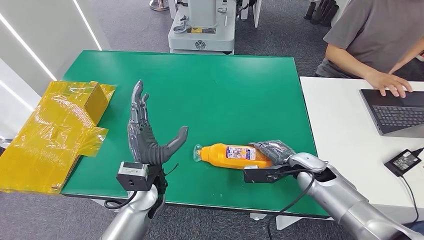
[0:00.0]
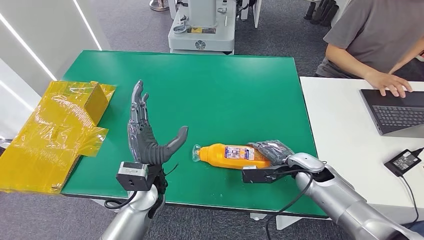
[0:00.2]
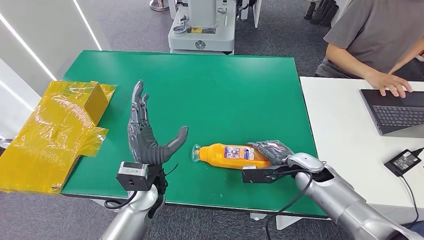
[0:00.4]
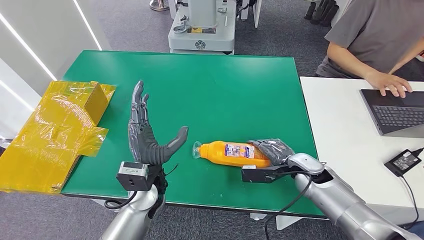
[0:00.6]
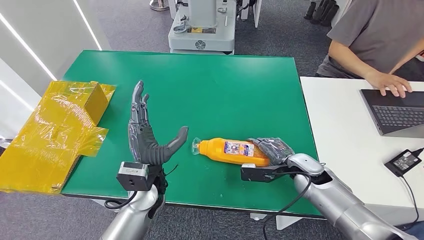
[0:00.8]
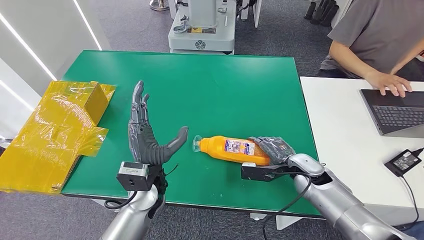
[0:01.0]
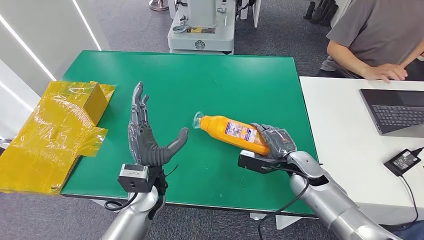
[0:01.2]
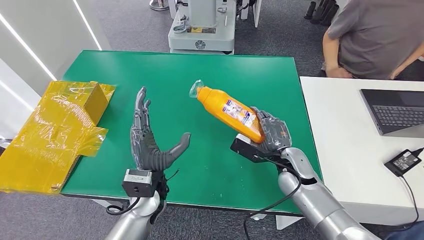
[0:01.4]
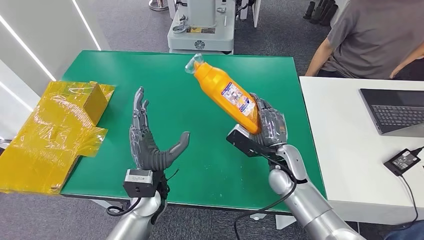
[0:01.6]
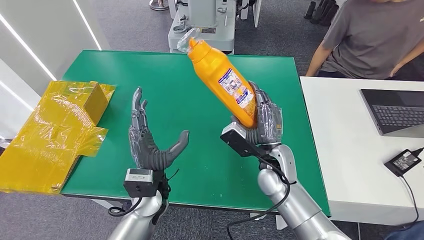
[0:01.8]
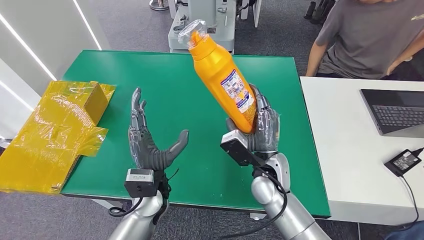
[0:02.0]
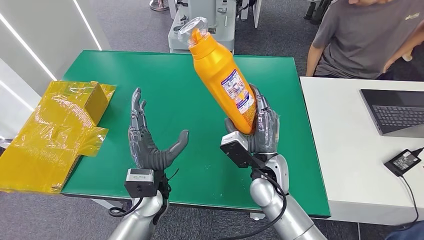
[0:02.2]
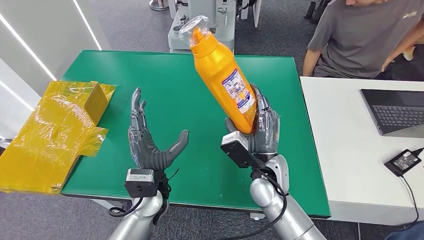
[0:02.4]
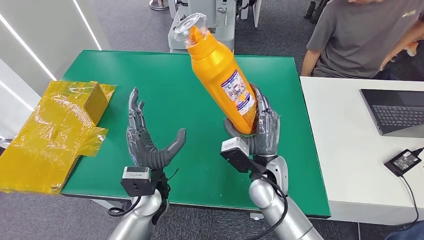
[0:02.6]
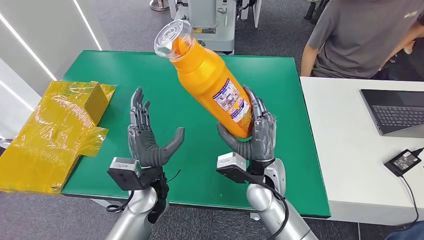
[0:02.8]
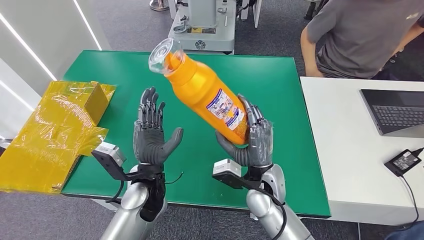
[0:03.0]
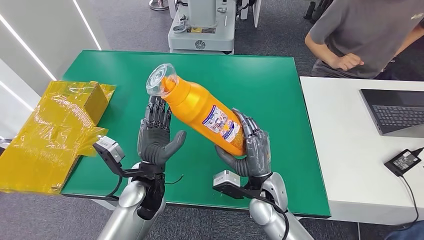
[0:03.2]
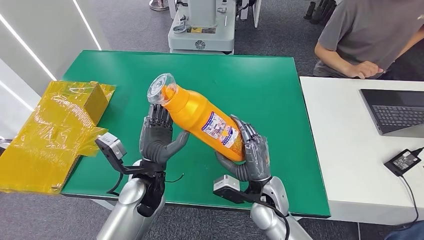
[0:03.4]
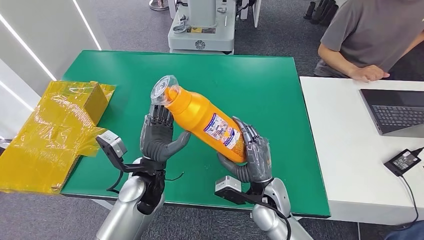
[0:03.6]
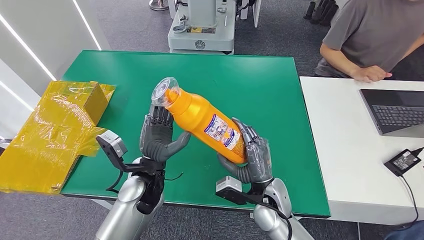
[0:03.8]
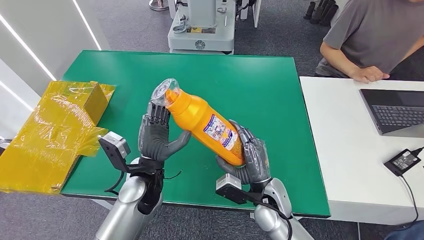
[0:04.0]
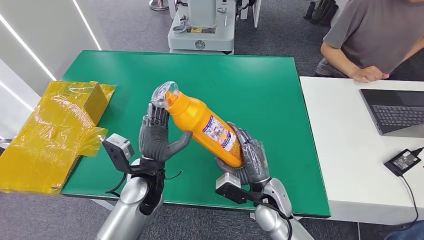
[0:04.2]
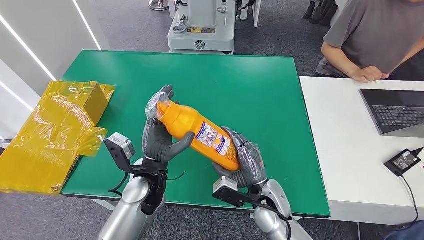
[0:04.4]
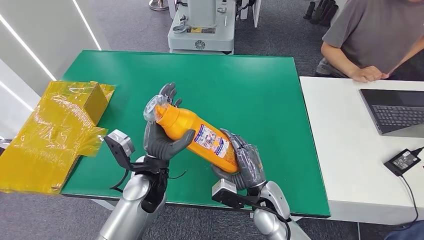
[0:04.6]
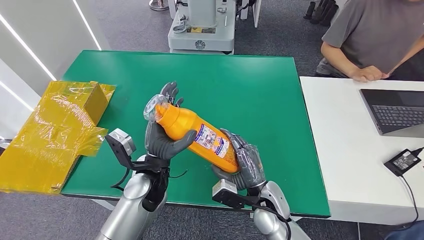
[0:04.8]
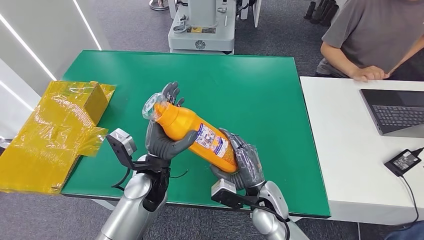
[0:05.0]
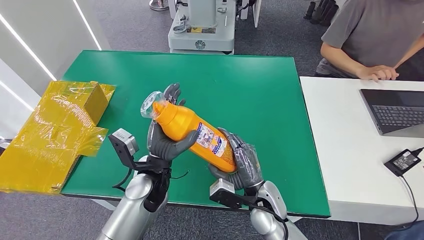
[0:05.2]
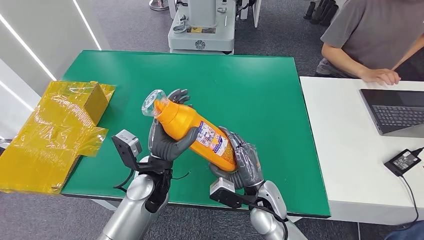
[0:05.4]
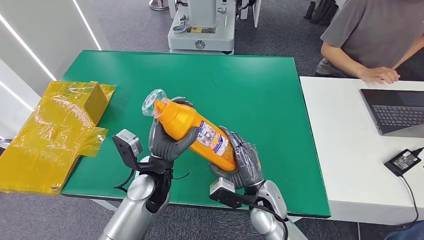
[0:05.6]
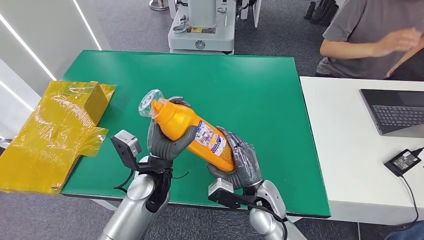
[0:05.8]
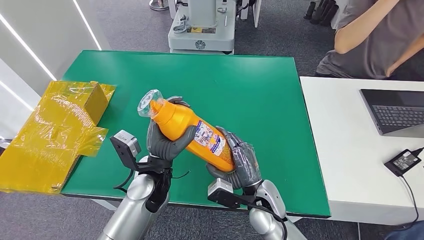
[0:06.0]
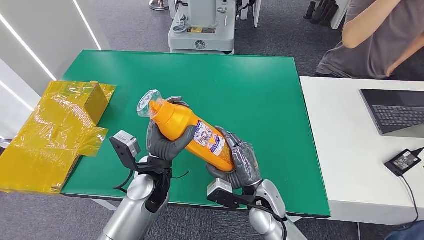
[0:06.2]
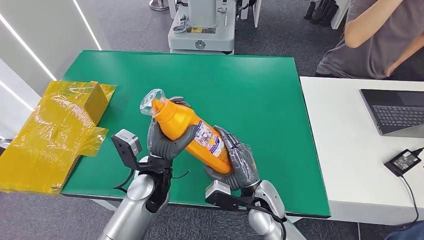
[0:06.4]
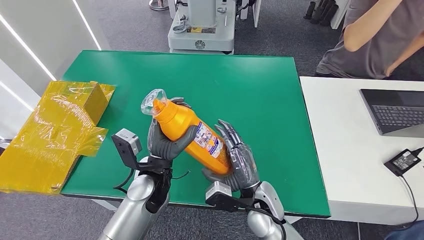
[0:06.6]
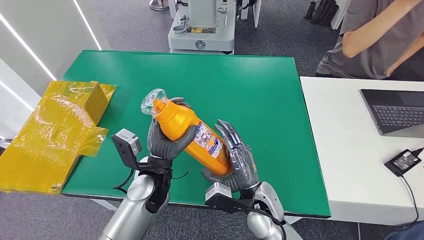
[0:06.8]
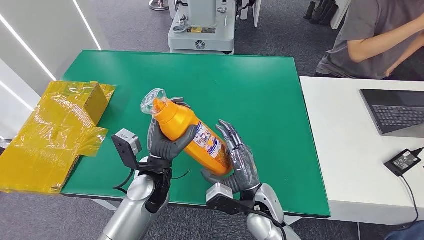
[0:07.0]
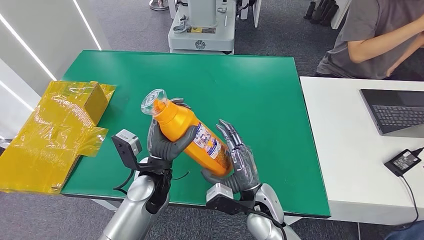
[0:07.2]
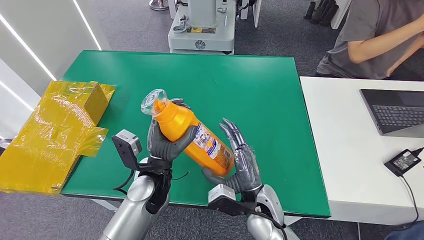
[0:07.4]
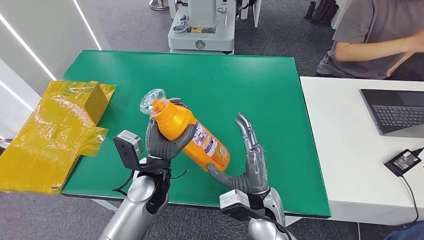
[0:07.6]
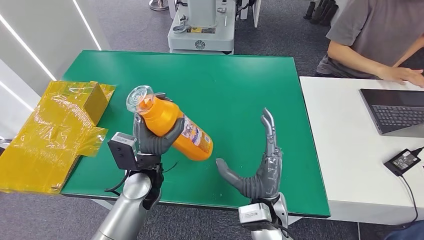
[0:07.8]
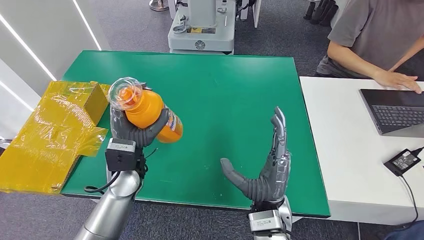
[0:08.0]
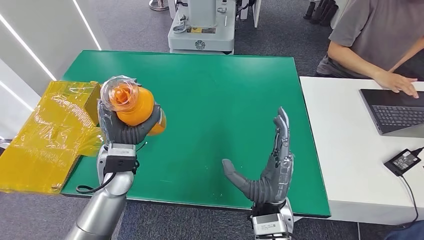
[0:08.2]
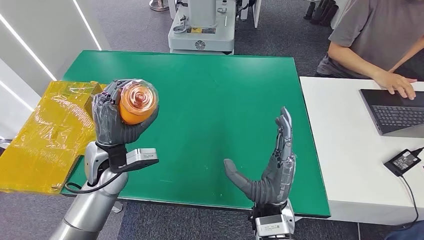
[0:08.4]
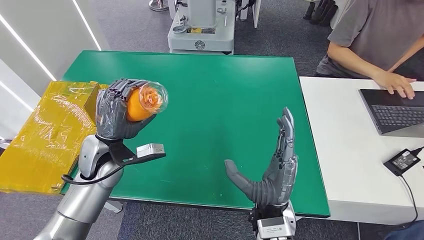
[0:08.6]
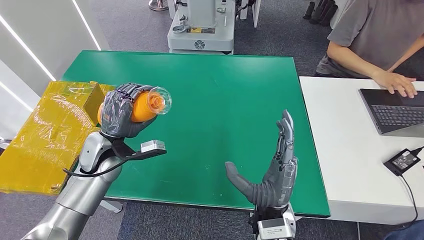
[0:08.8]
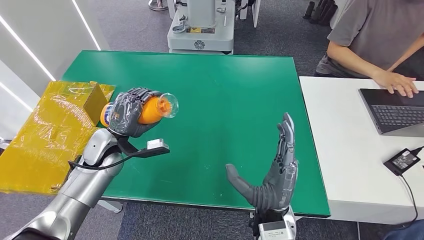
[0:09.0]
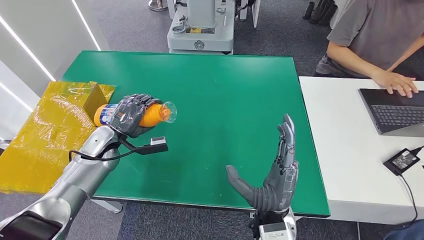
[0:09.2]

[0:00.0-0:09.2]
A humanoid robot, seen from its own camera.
Step, 0:00.0 to 0:02.0: Pick up the bottle from the table.
Step, 0:02.6 to 0:09.2: Turn the bottle to the front side.
0:00.0 to 0:01.6: The right hand goes some 10 cm to the left.
0:04.6 to 0:07.6: There are only small adjustments of the hands.
